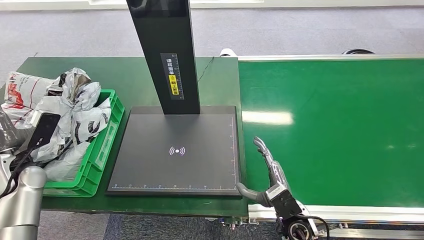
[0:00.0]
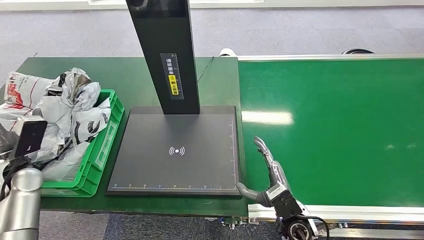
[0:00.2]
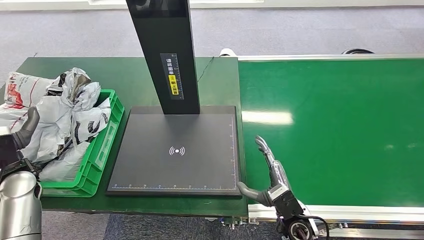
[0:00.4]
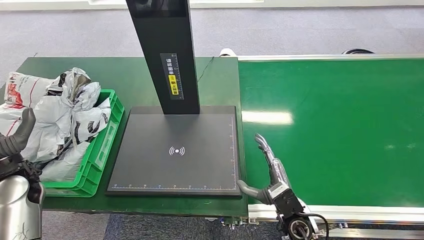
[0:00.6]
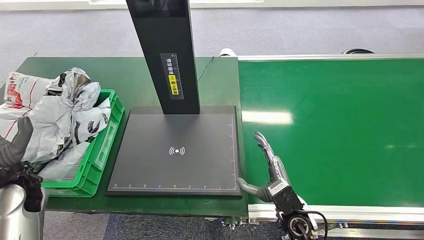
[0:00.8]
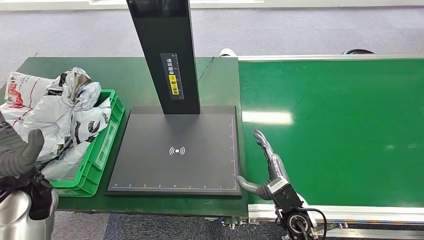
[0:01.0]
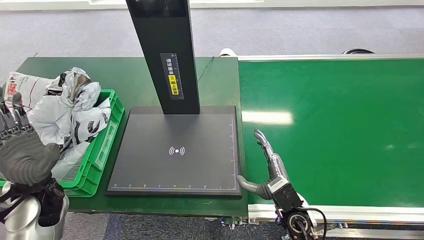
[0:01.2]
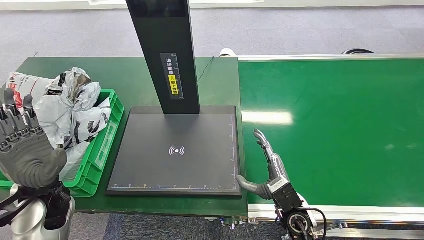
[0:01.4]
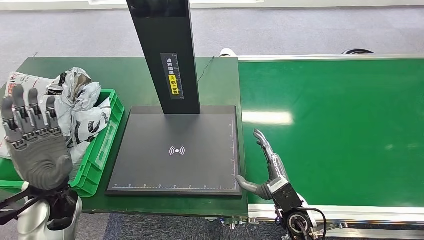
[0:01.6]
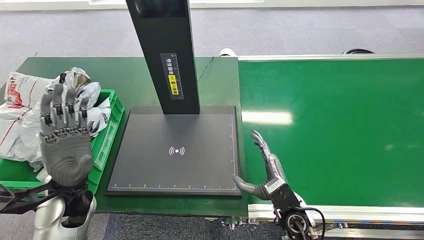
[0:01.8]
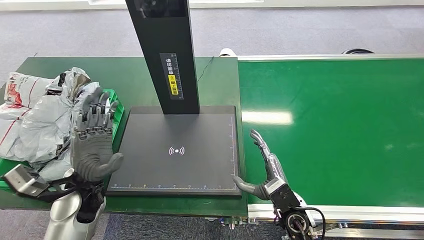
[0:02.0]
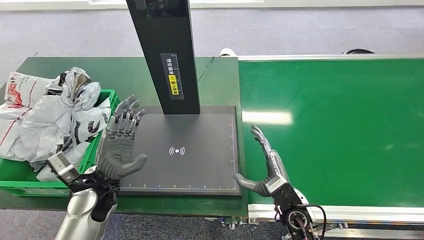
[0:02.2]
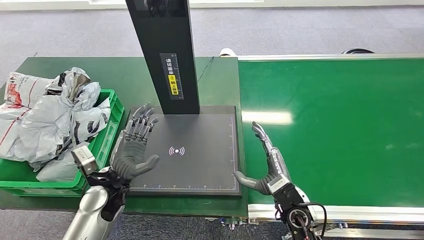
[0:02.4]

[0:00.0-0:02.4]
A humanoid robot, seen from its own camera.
Step, 0:00.0 to 0:02.4: Place the package into the parcel locker.
0:00.0 to 0:01.2: The left hand heads to the right and backward, covering roughly 15 cm.
0:01.2 to 0:02.4: The left hand moves to the right and downward, some 15 cm.
